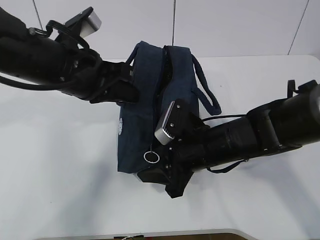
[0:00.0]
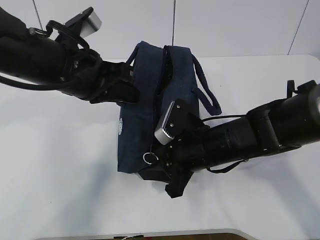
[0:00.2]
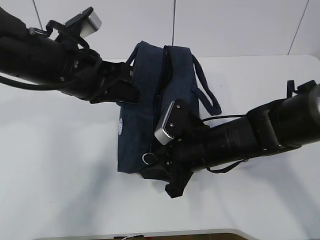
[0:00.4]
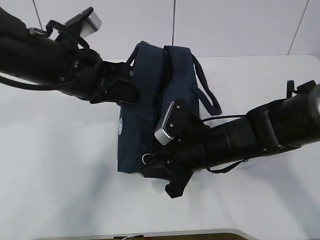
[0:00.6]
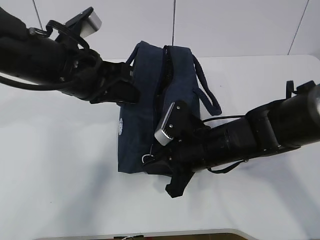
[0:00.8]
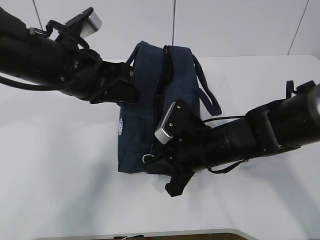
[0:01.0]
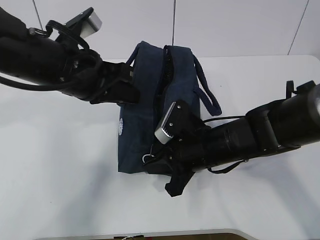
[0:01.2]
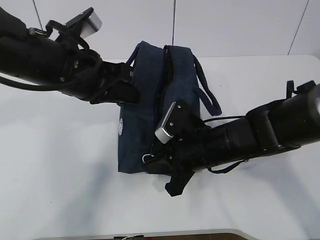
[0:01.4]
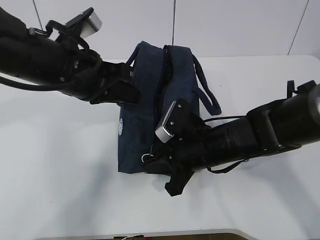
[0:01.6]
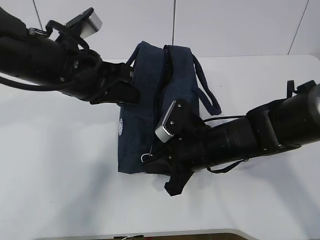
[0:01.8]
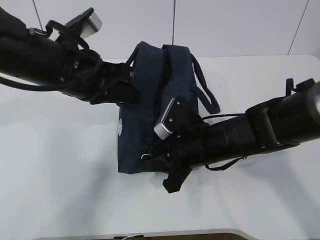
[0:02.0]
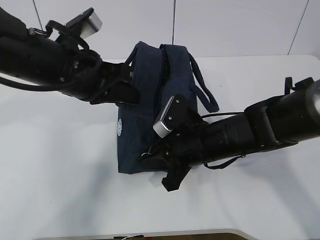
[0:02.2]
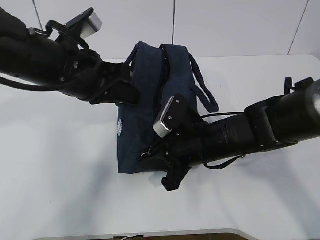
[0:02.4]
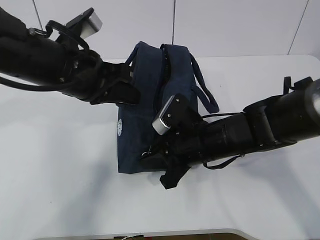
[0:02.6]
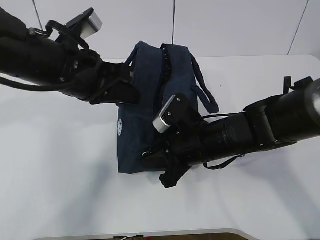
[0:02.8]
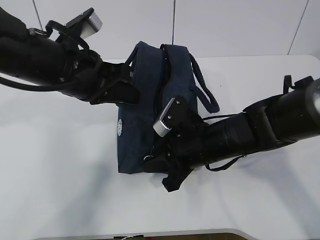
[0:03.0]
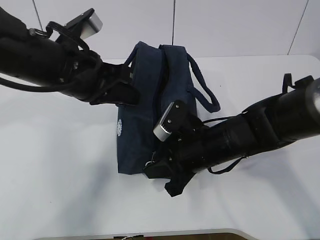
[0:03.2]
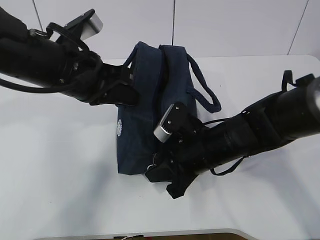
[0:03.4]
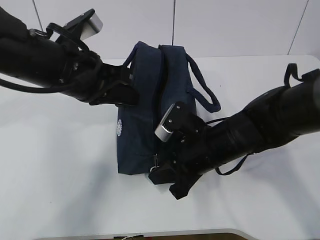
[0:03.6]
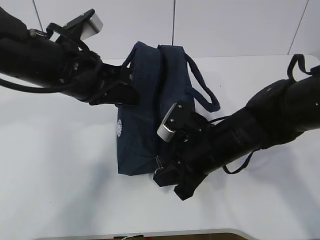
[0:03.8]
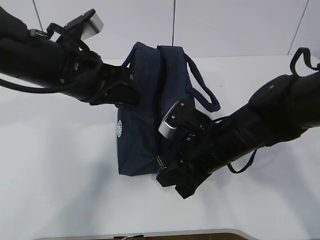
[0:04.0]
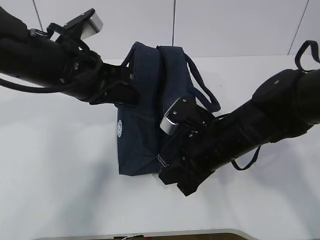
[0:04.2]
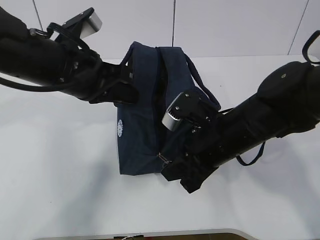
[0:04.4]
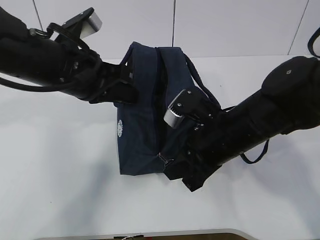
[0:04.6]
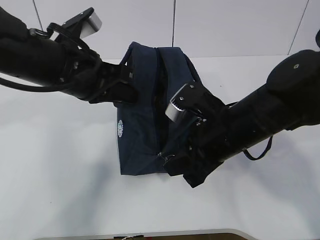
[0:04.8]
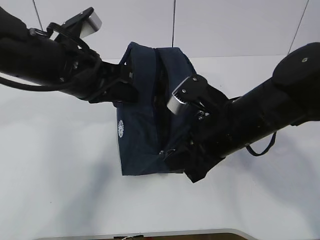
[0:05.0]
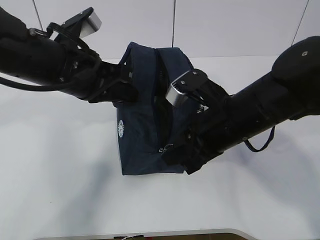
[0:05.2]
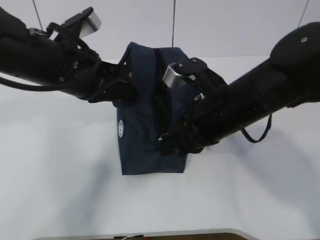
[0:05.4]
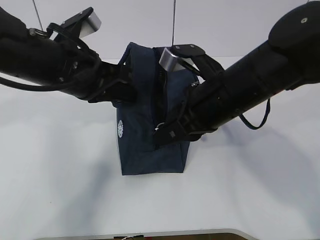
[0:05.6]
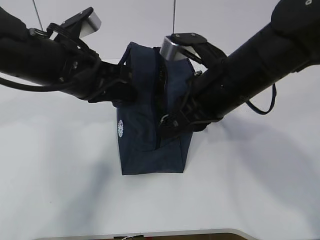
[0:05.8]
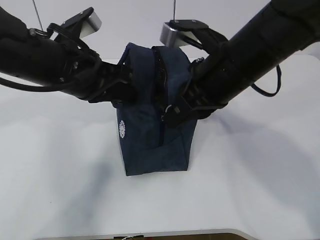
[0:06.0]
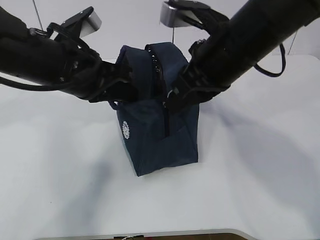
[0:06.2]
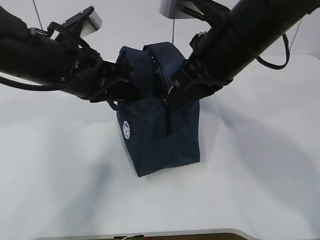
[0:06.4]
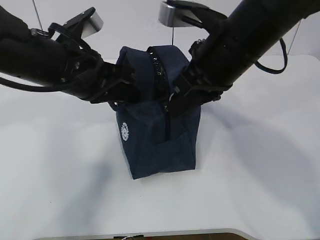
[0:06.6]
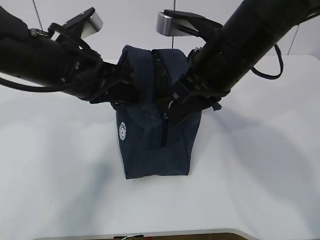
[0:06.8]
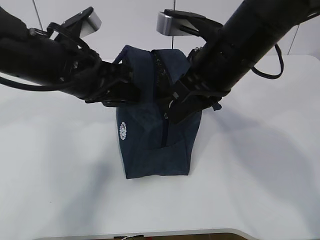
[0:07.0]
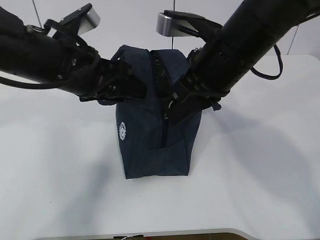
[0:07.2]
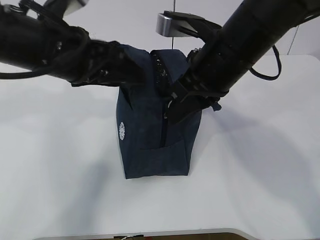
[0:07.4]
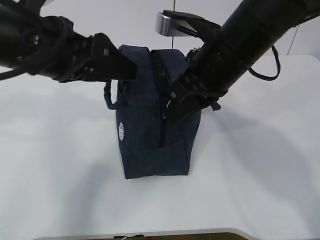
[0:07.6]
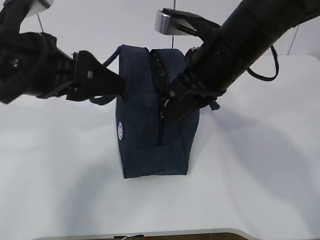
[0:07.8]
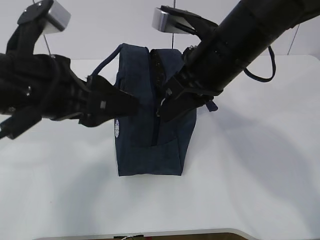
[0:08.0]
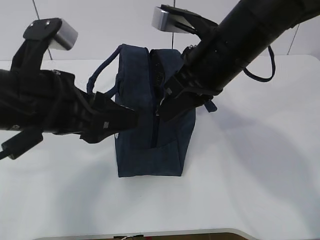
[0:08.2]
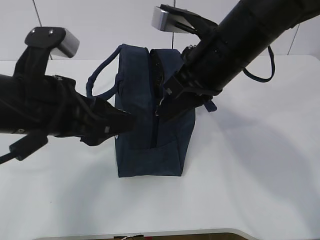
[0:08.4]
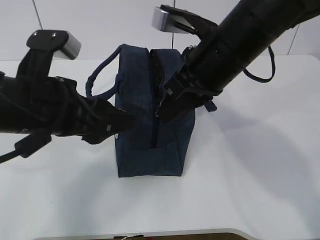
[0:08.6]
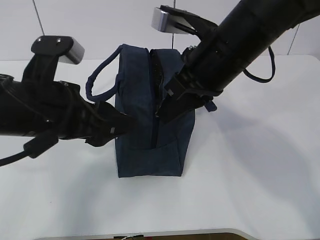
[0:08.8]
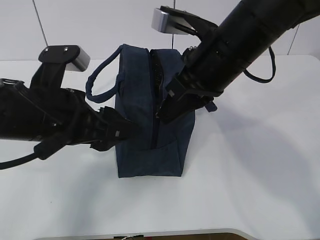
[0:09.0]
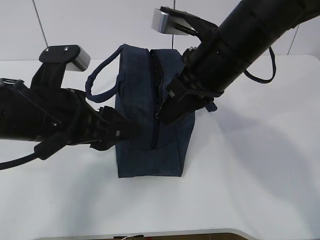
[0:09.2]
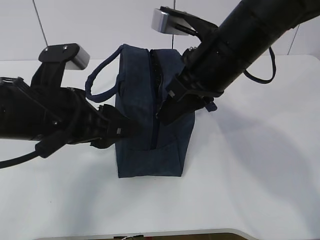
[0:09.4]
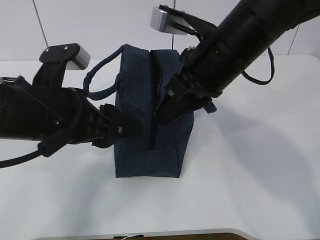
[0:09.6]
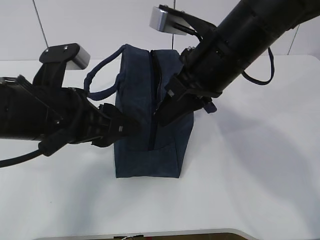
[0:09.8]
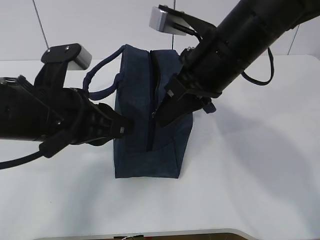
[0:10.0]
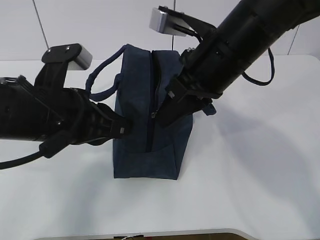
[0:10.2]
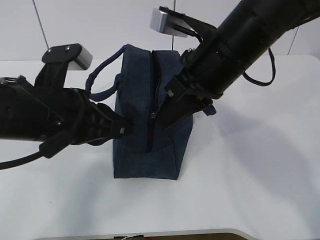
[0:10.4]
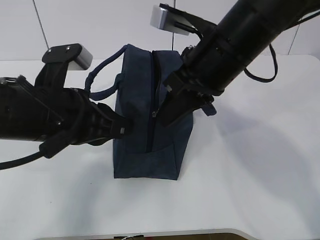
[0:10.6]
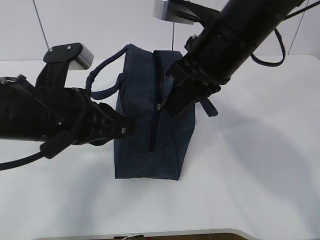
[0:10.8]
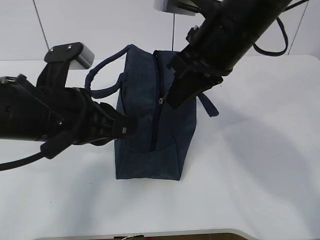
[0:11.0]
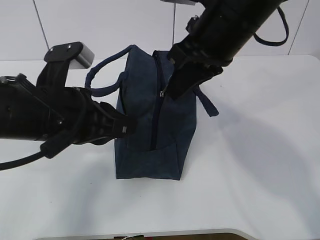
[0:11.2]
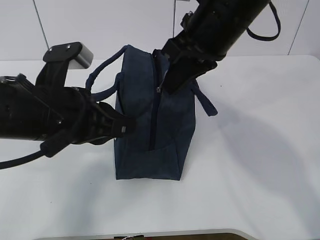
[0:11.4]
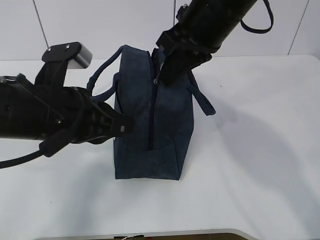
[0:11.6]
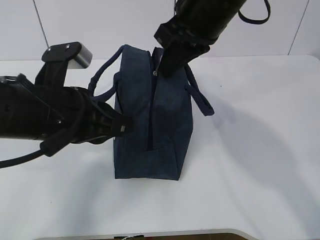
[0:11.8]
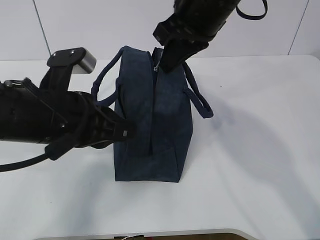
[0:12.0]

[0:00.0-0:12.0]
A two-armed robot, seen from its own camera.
Step, 0:00.0 to 0:09.2: Grab the lunch bag with your left hand.
0:00.0 to 0:01.6: The right gripper closes its fingers.
0:01.6 to 0:03.0: Both grippers stay put.
0:03.0 to 0:04.4: The grippers move only a little.
0:04.4 to 0:06.0: The right gripper travels upward by about 10 cm.
0:06.0 to 0:07.6: The left gripper heads upward, covering approximately 5 cm, and opens.
0:07.6 to 0:09.0: The left gripper shifts approximately 5 cm downward.
0:09.0 to 0:10.4: The left gripper closes up.
0:10.4 to 0:12.0: The right gripper is displaced forward by roughly 5 cm.

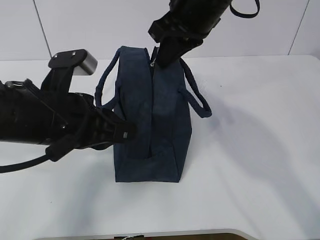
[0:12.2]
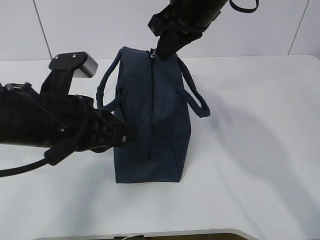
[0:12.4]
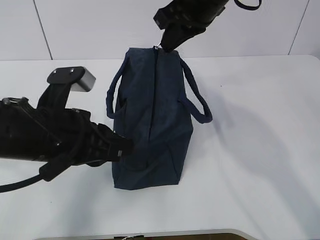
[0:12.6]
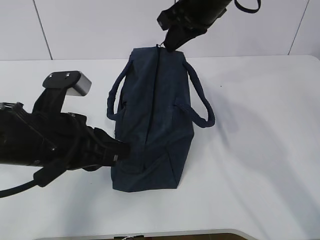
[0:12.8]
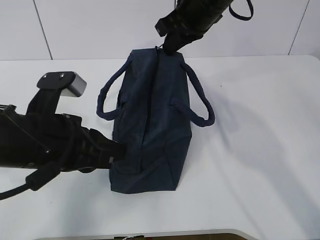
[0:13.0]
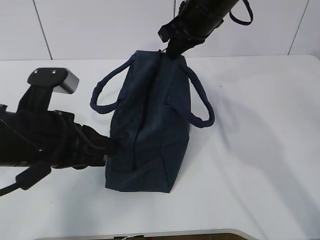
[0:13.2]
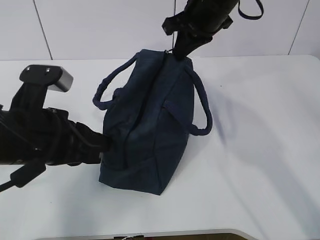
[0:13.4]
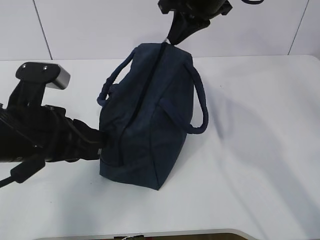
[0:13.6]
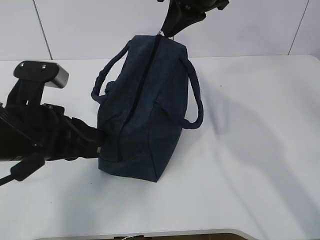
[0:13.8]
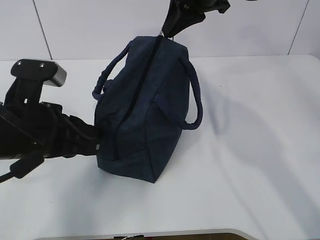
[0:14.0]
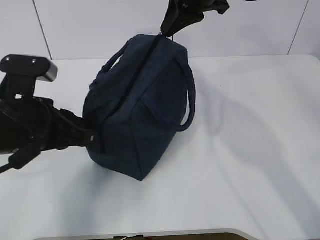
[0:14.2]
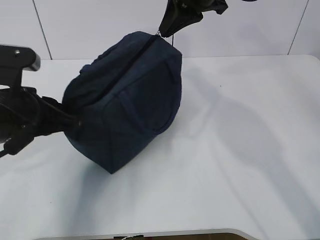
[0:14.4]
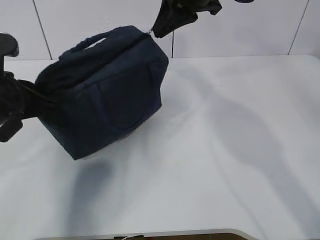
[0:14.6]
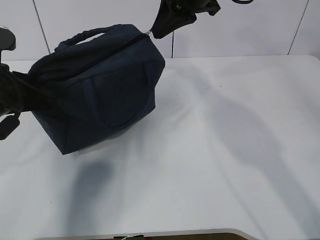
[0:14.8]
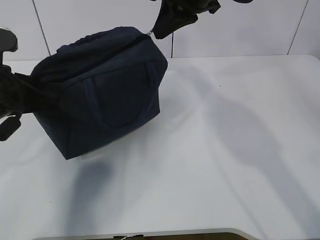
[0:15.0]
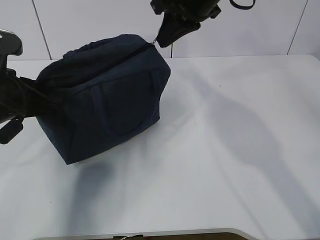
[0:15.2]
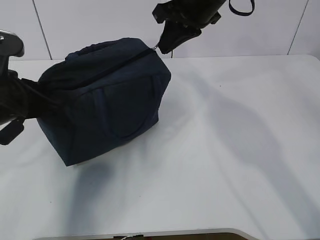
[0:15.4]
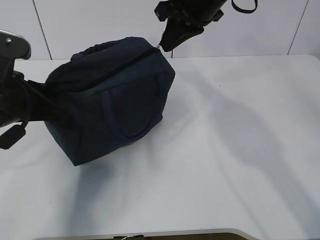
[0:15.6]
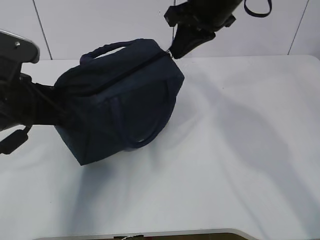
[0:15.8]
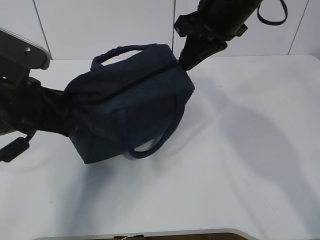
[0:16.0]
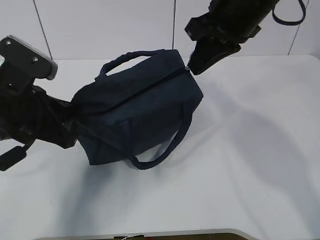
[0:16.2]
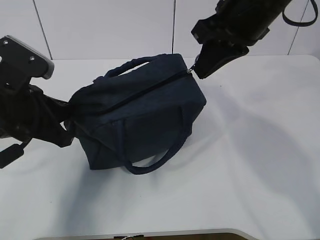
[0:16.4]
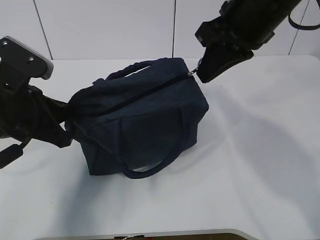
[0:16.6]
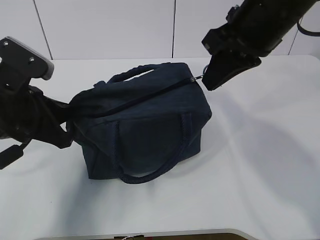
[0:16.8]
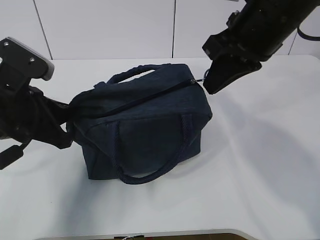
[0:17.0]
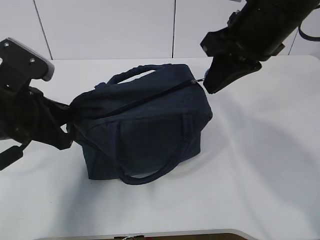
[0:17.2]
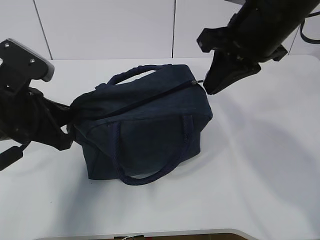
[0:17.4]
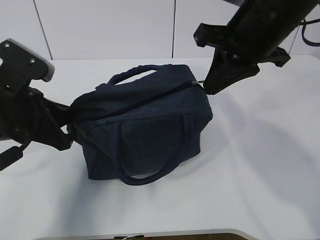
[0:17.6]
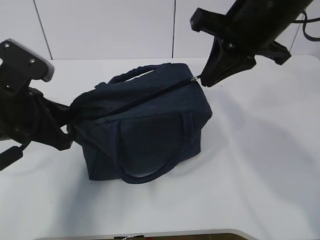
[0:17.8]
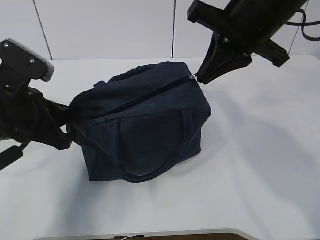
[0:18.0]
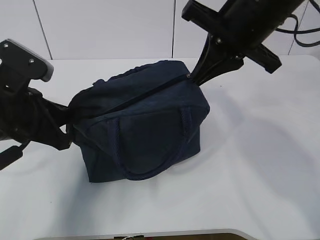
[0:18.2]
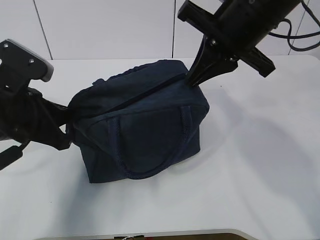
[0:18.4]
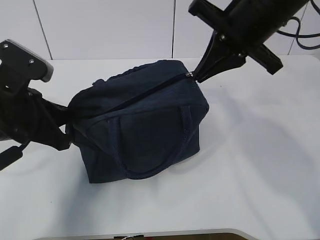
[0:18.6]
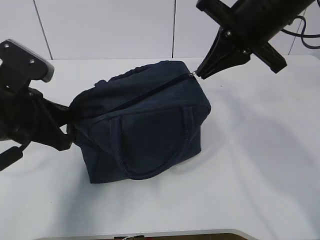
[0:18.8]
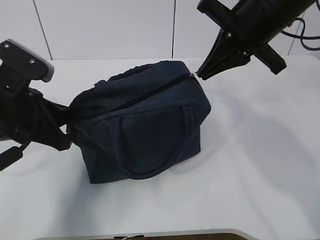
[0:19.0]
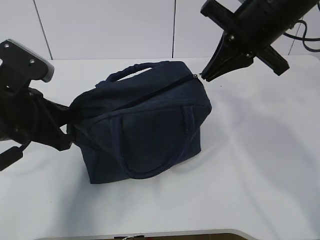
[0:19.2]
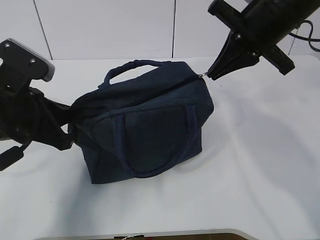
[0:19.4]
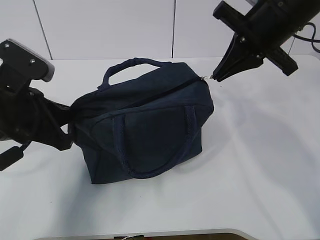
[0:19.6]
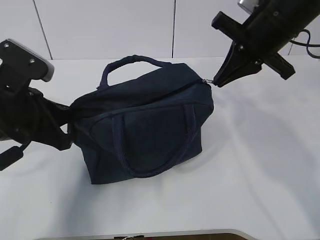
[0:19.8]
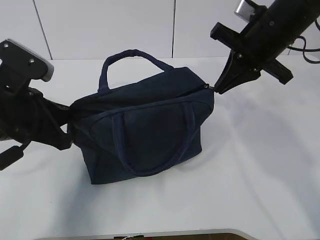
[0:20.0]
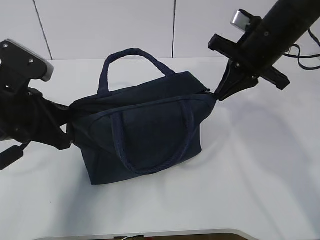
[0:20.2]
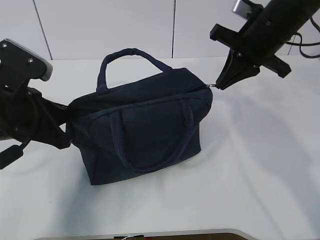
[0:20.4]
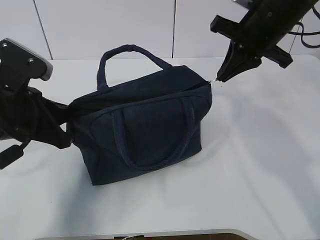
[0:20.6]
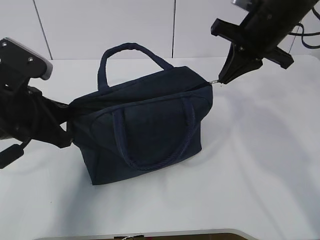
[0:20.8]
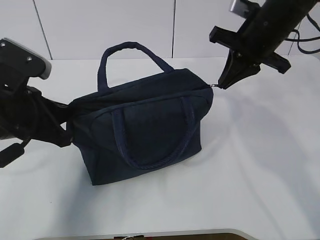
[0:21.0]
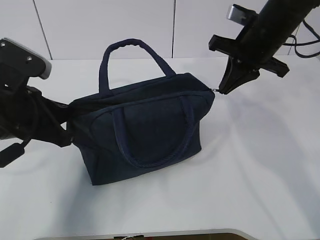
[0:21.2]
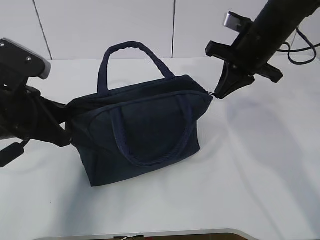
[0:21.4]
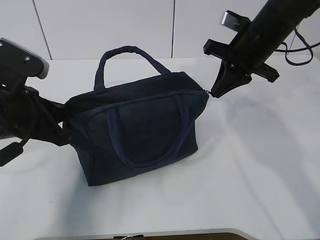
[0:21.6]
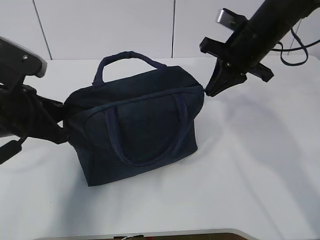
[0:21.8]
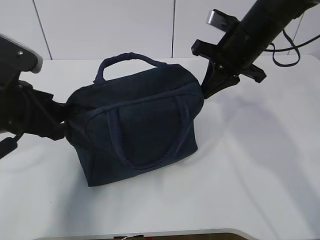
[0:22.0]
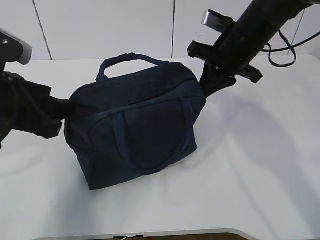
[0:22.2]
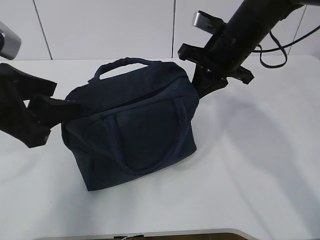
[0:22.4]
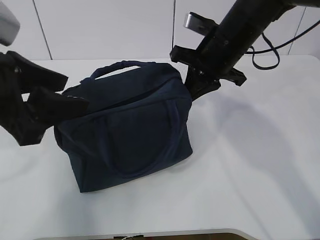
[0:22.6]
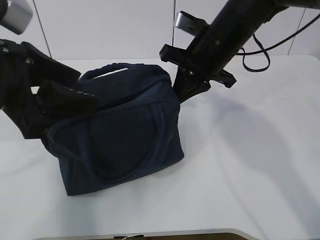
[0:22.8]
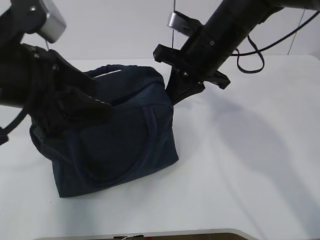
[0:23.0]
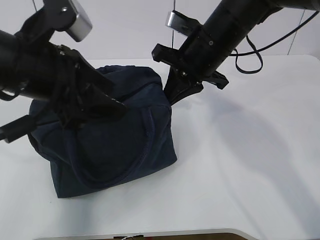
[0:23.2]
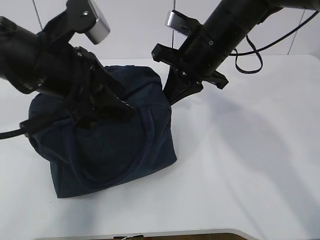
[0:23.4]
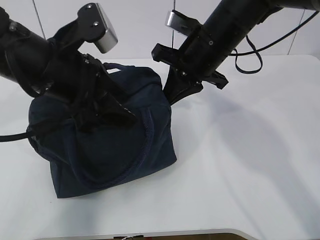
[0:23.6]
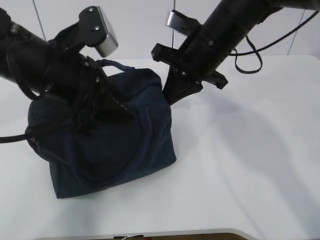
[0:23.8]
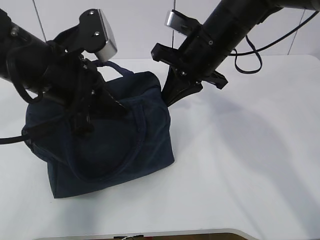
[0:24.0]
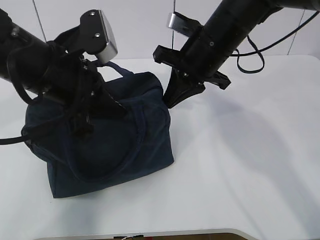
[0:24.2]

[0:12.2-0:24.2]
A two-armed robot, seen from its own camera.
Step, 0:13.2 to 0:13.8: Grab the lunch bag with your left hand.
0:12.2 to 0:13.8: The right gripper moves forward, some 5 cm.
0:13.8 to 0:15.2: The left gripper ends up some 5 cm from where it was.
0:15.2 to 0:16.6: The right gripper heads backward, covering approximately 10 cm.
0:18.2 to 0:19.8: The right gripper travels to the right by about 5 cm.
0:19.8 to 0:21.2: The grippers stay close to where they were, moving slightly.
0:21.2 to 0:22.6: The right gripper heads to the left, covering about 5 cm; the left gripper heads upward, covering approximately 5 cm, and opens up.
0:22.6 to 0:24.2: The left gripper goes about 10 cm forward and to the right, and closes.
